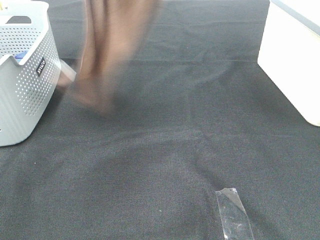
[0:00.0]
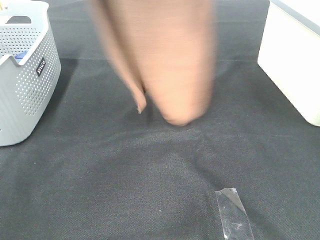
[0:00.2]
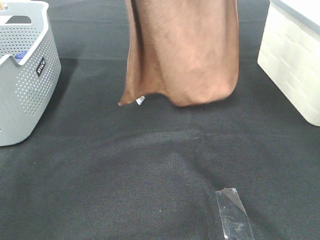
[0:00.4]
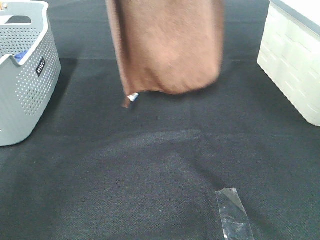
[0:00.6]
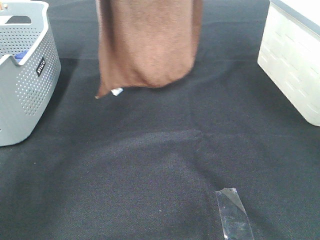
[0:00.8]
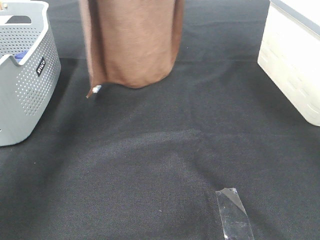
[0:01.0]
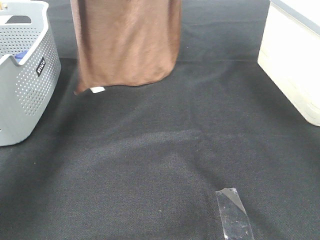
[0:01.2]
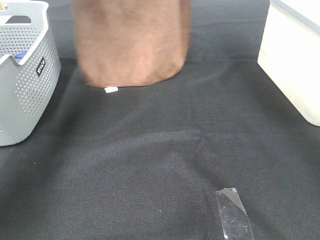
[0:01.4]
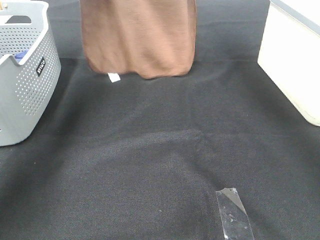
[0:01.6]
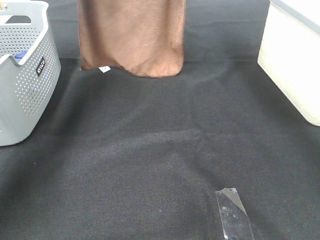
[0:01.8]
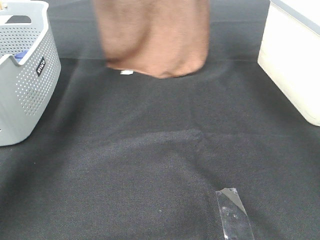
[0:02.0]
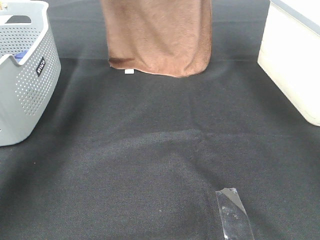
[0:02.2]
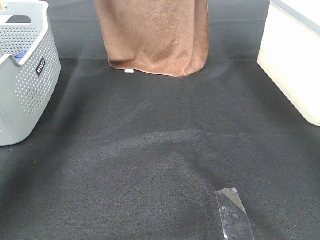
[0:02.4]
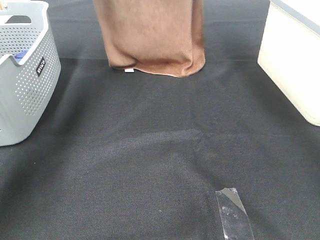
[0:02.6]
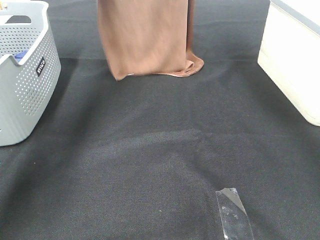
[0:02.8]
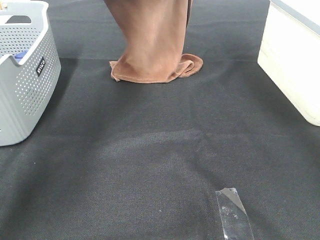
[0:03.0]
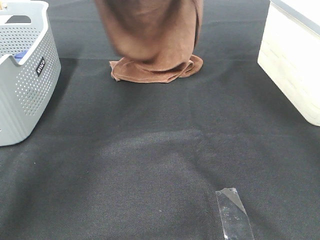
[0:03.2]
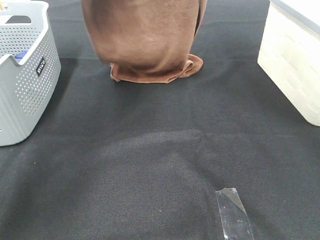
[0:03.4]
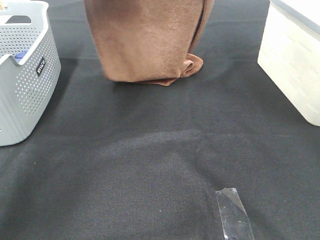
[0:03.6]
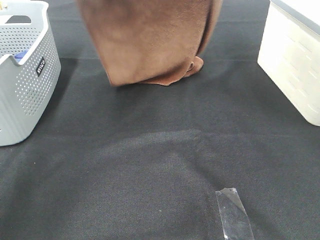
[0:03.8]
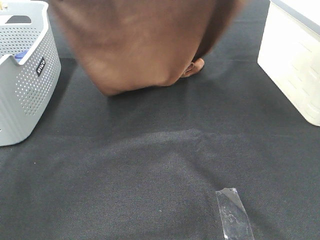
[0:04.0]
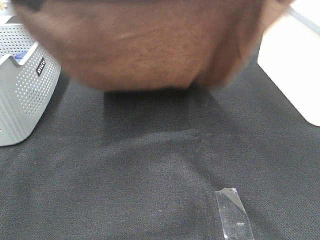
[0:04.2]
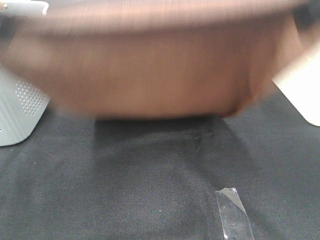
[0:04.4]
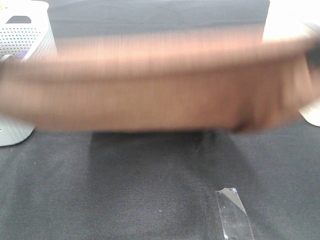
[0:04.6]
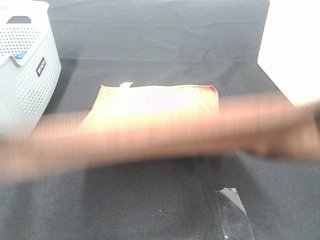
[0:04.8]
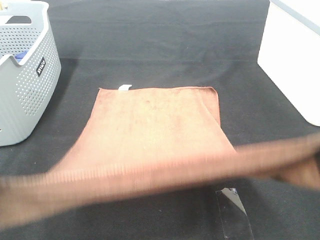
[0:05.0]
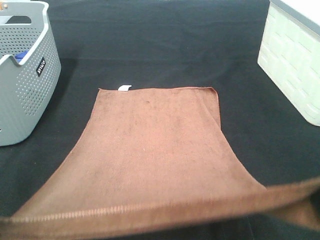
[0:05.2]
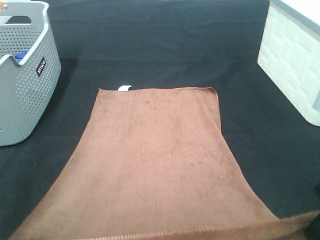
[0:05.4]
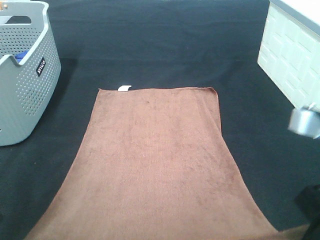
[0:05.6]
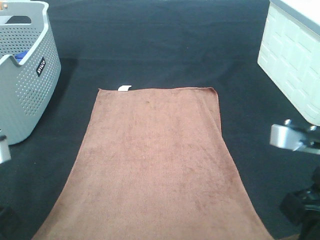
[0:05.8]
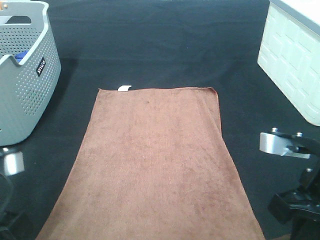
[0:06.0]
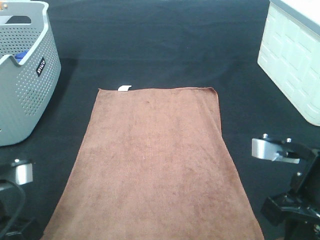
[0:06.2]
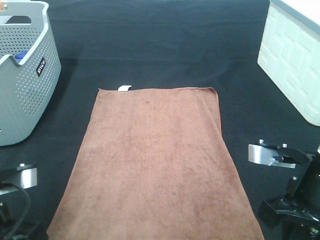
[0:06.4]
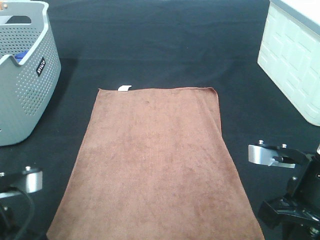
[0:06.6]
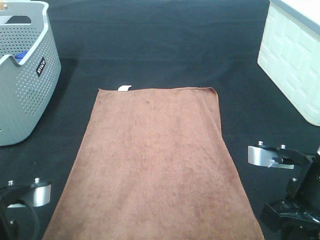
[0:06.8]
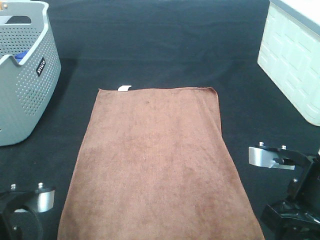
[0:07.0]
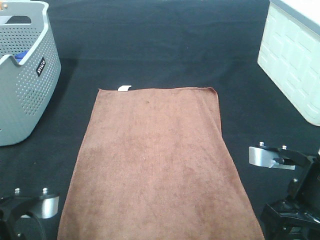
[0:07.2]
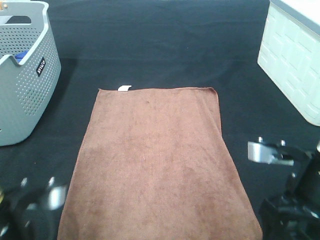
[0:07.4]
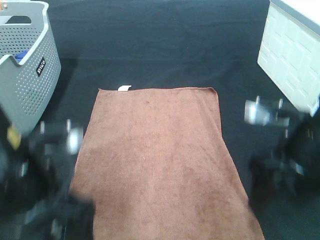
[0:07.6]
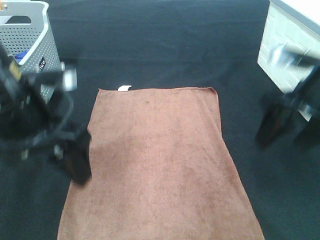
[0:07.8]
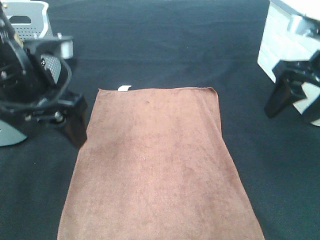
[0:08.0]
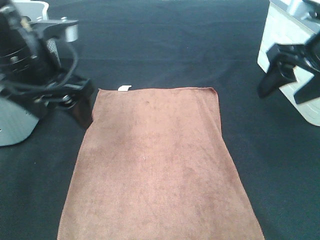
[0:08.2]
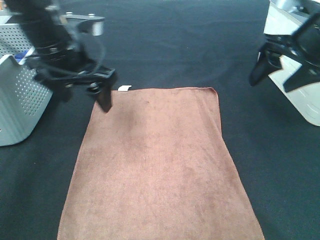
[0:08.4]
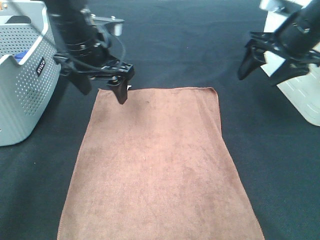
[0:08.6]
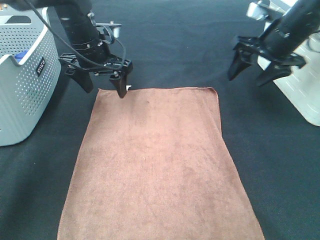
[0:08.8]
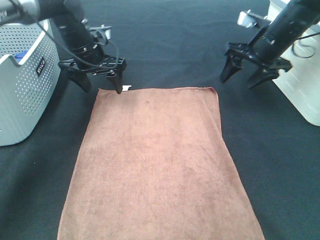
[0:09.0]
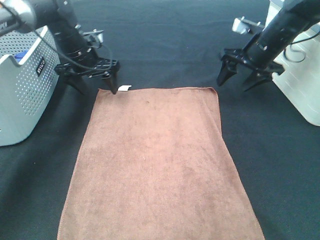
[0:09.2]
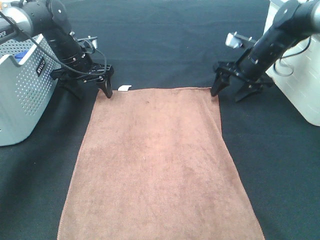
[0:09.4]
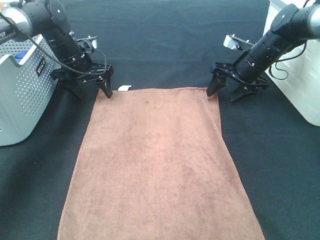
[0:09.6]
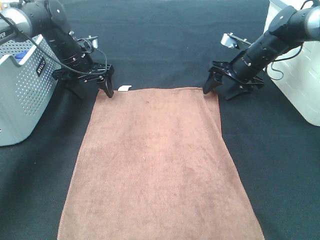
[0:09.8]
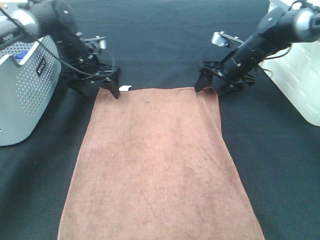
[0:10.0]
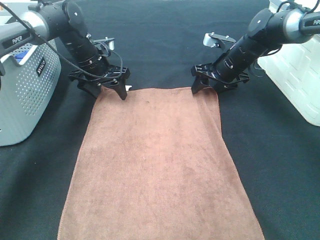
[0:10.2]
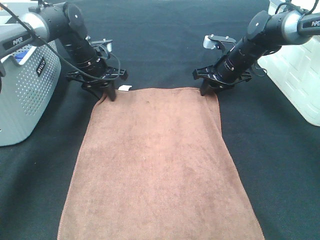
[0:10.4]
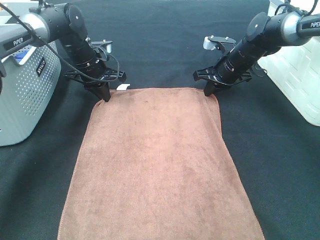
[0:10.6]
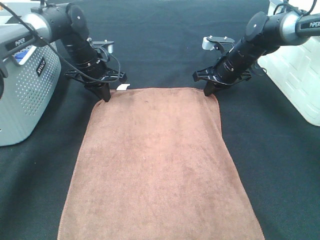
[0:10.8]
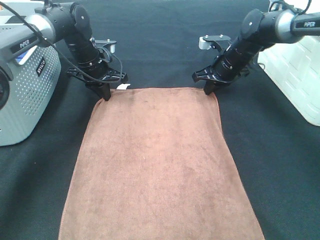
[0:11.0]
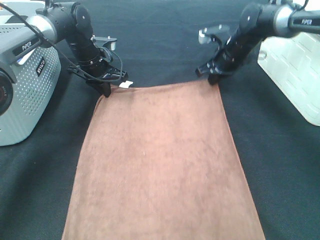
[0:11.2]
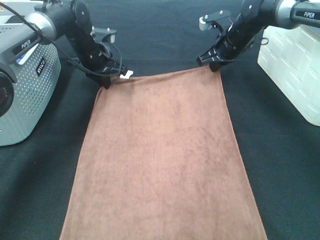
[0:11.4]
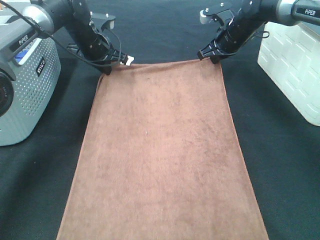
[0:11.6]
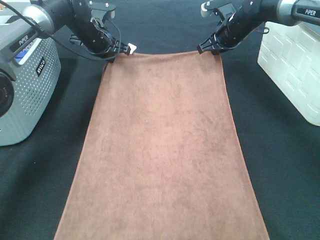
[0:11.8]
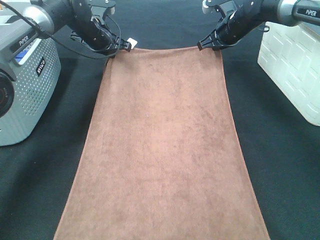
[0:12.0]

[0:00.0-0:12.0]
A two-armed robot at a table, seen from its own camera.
Task of the whole recording: Remove the towel and place it.
Step, 0:00.0 to 0:03.6: Left hand: spread the brown towel flat on the table.
Step, 0:00.0 to 0:03.6: Right hand: spread the brown towel flat on the table.
Step, 0:03.8 to 0:09.0: Left hand:adjust the brown towel.
Step, 0:03.8 to 0:09.0: Right hand:adjust the brown towel.
0:00.0 to 0:01.6: The right gripper shifts some 15 cm forward and downward; the left gripper shifts about 20 cm forward and downward.
0:01.6 to 0:03.0: The left gripper goes about 15 cm downward and to the right. Meanwhile the right gripper travels downward by some 5 cm.
0:03.0 to 0:04.4: The grippers both shift backward by approximately 35 cm.
0:04.4 to 0:06.0: Both grippers travel together downward, approximately 20 cm.
0:06.0 to 0:07.6: The left gripper heads to the right, covering about 5 cm, and opens; the right gripper travels forward by about 5 cm, and opens its fingers.
0:07.6 to 0:09.0: The two grippers go roughly 30 cm forward.
0:09.0 to 0:10.4: The left gripper shifts by approximately 5 cm, and closes, while the right gripper heads downward and to the left, covering roughly 10 cm, and closes.
0:10.4 to 0:12.0: The left gripper moves upward, roughly 5 cm. Meanwhile the right gripper goes approximately 10 cm upward and forward.

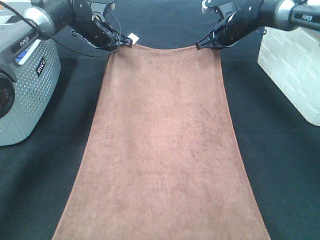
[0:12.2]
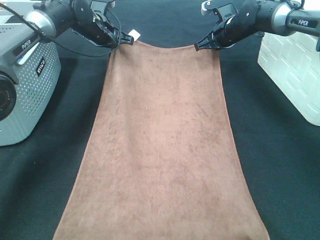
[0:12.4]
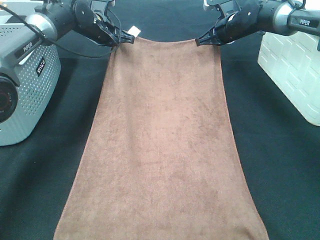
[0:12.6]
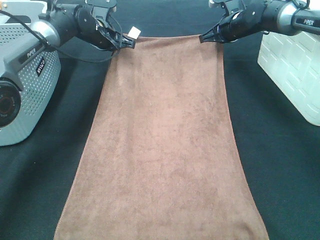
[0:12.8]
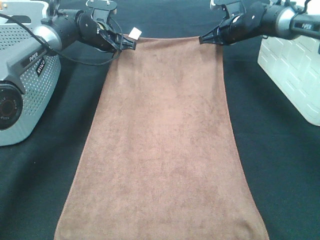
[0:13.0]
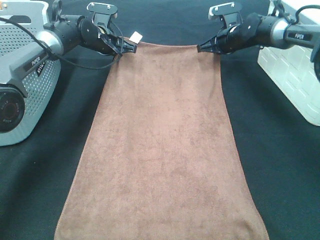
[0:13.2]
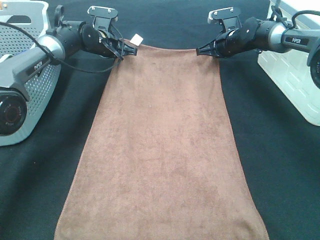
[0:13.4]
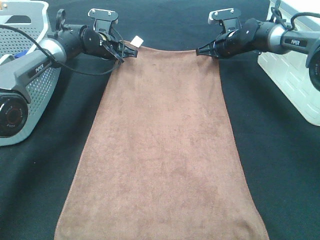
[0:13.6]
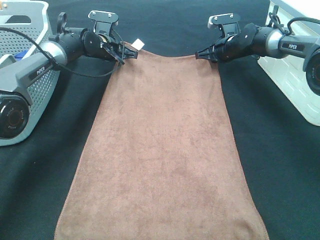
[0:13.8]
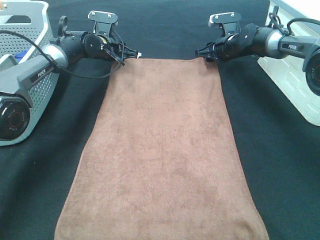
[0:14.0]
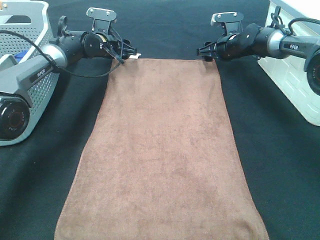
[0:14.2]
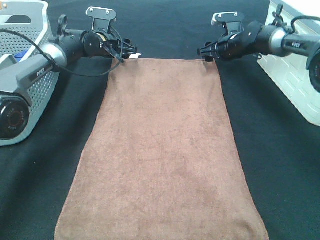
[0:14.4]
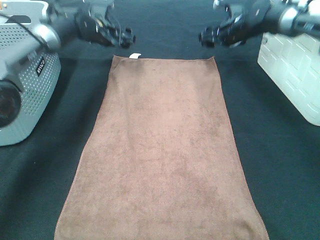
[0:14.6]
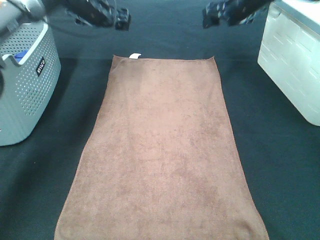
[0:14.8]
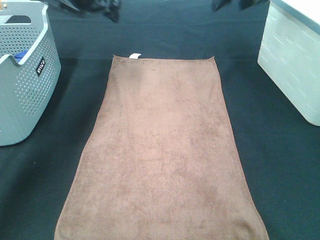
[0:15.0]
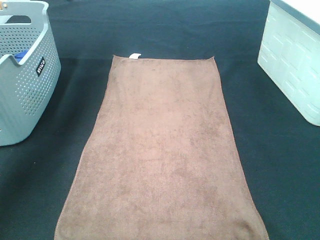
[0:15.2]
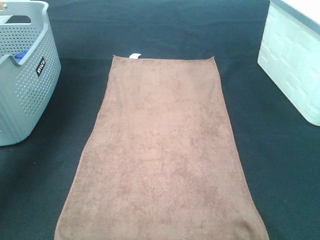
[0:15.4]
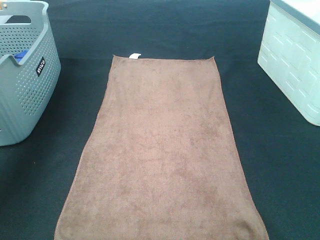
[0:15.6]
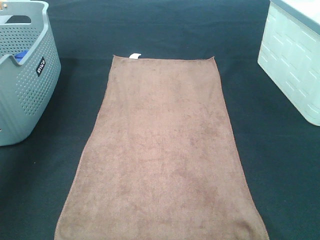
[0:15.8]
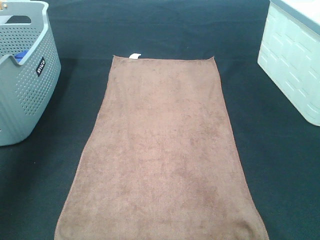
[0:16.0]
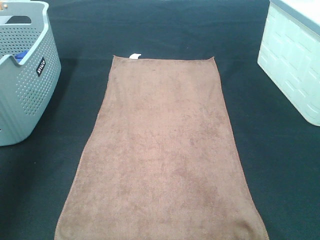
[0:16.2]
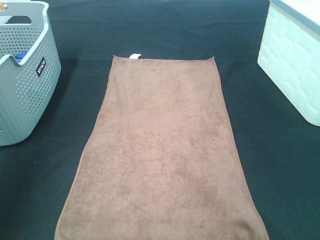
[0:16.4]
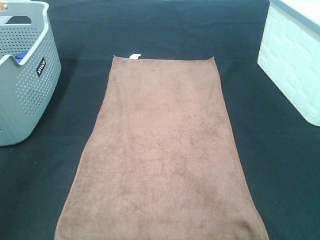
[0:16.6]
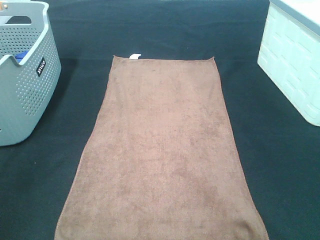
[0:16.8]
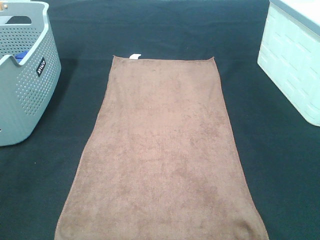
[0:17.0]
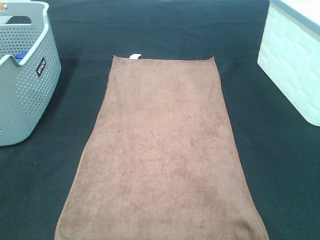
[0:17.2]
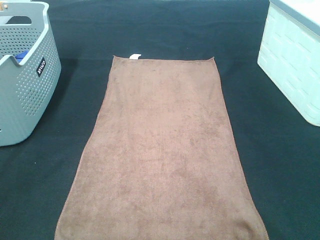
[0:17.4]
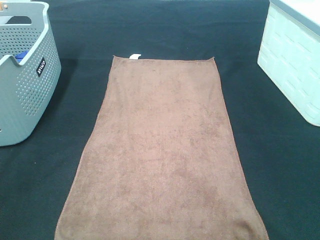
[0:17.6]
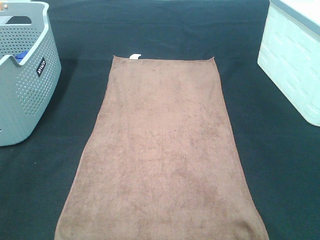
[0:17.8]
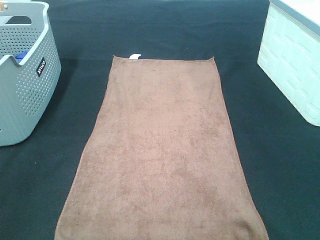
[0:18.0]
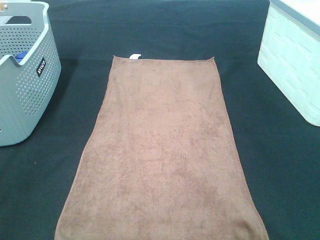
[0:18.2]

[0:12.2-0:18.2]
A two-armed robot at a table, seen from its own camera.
Task of the whole recording: Remove the towel and place it.
0:12.2 to 0:13.8: The two grippers go approximately 5 cm downward.
0:13.8 to 0:15.2: Both grippers move upward, roughly 25 cm. The left gripper opens. The right gripper opens its fingers.
0:15.2 to 0:16.6: Both grippers move backward, approximately 40 cm.

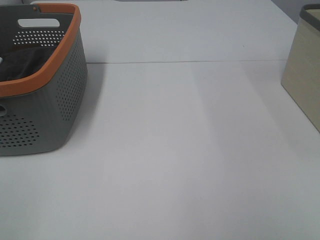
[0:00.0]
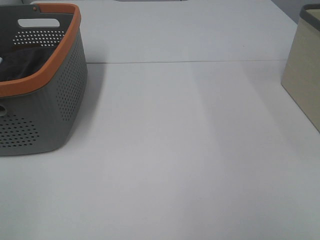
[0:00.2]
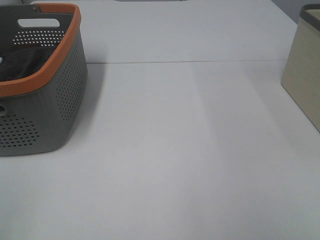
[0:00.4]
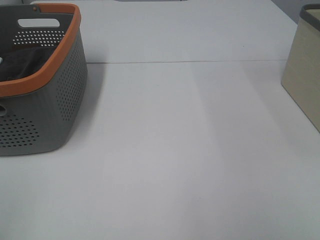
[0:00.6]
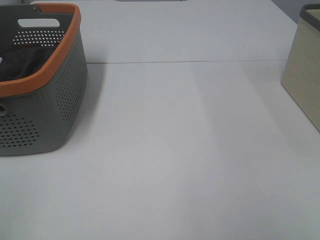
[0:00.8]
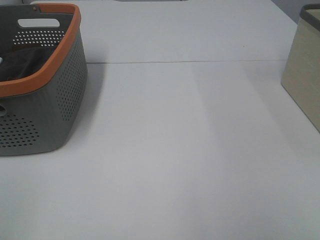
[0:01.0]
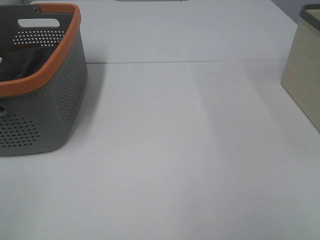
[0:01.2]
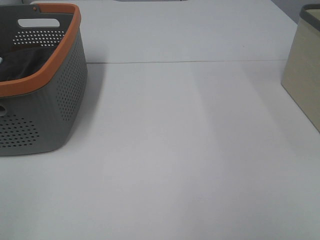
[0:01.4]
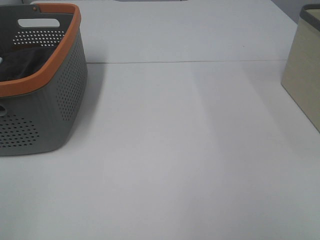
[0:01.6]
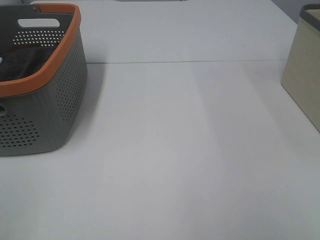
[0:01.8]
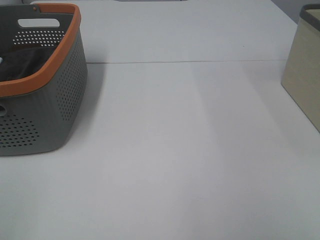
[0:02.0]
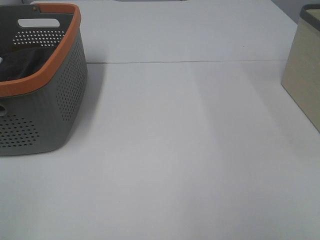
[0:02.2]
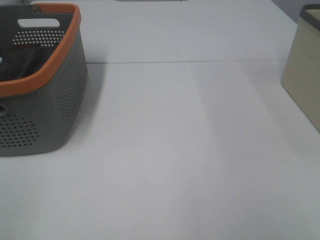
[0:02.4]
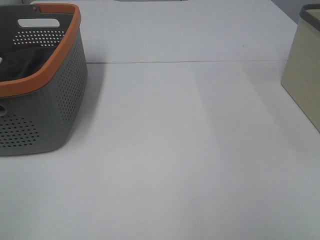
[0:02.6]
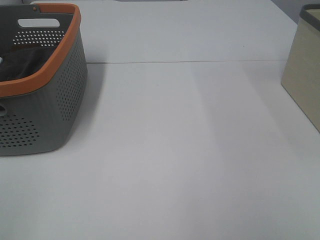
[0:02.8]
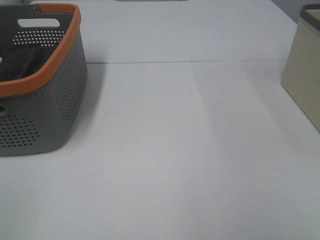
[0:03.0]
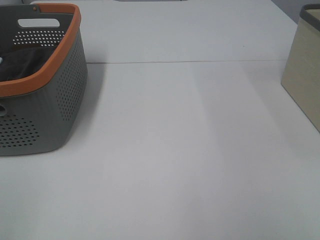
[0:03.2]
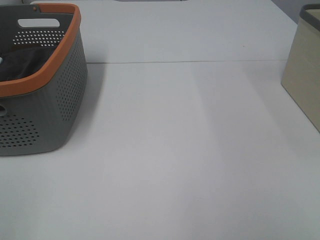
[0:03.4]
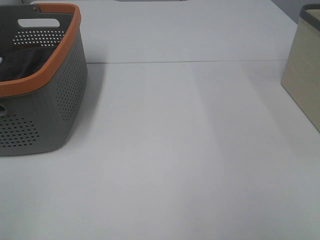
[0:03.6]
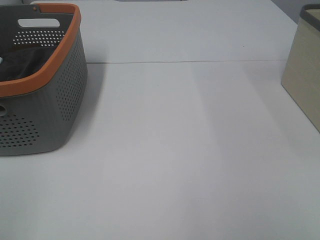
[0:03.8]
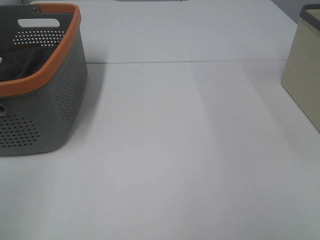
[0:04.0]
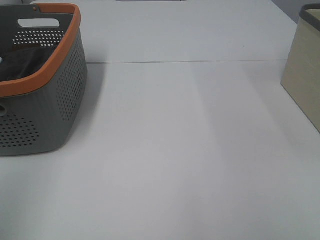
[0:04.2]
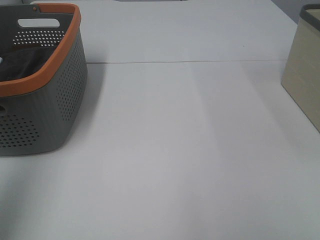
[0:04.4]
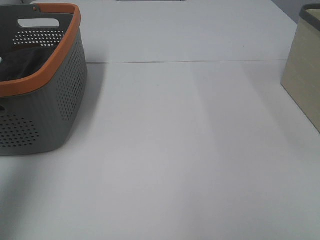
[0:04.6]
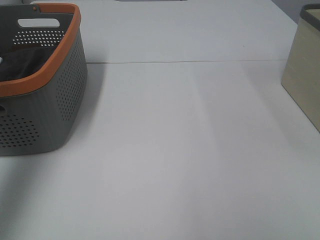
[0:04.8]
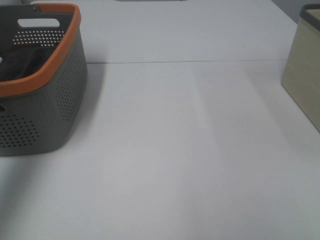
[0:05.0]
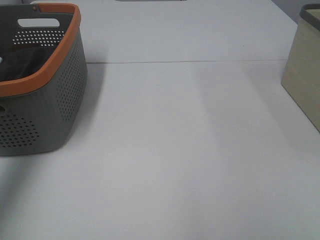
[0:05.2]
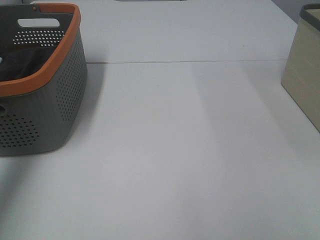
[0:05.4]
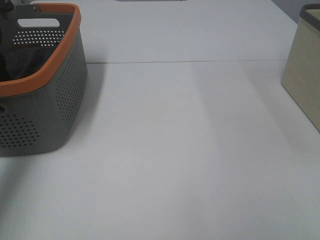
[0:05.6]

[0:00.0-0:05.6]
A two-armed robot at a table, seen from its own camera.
Task of the whole recording: Remove the towel and place it.
0:00.0 to 0:02.8: Neither gripper changes place.
0:04.2 to 0:05.6: The left gripper moves forward and downward, about 40 cm.
